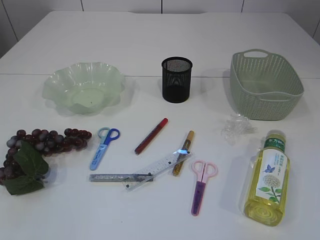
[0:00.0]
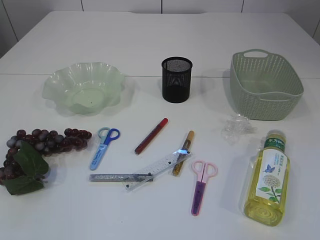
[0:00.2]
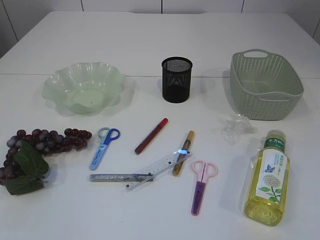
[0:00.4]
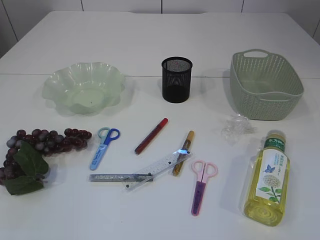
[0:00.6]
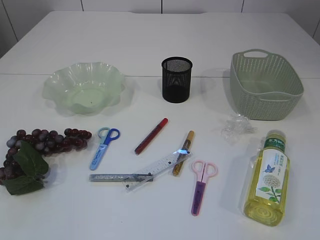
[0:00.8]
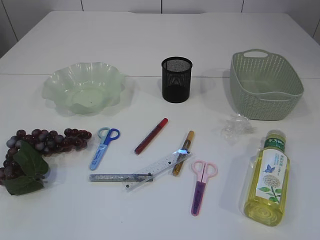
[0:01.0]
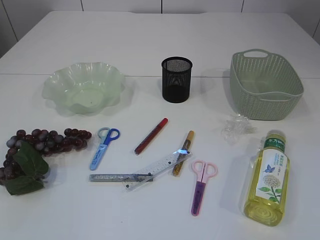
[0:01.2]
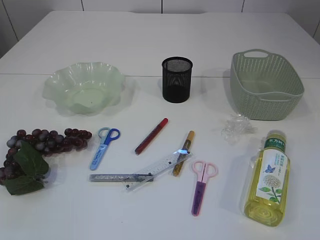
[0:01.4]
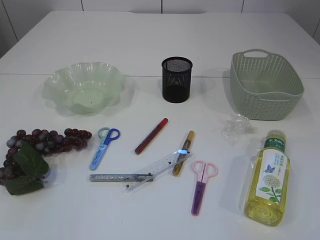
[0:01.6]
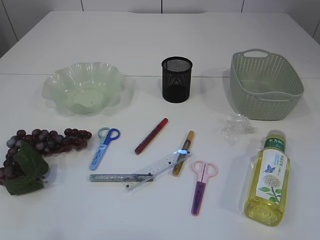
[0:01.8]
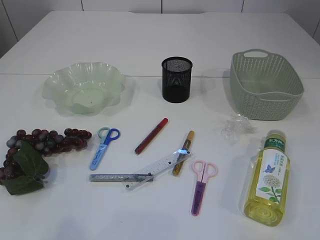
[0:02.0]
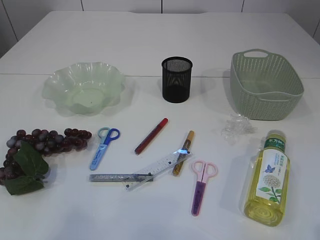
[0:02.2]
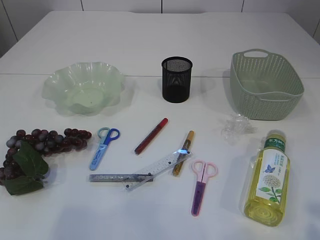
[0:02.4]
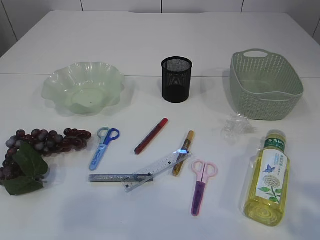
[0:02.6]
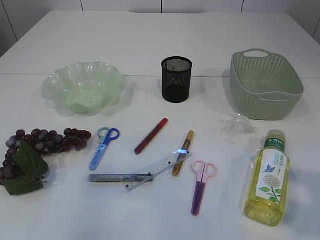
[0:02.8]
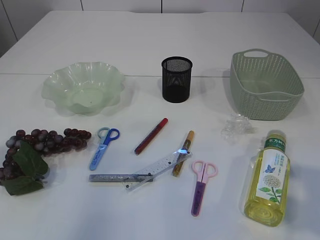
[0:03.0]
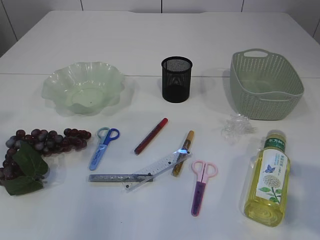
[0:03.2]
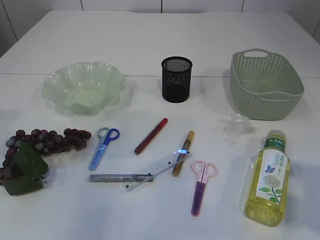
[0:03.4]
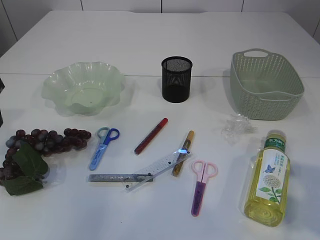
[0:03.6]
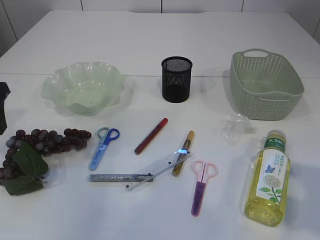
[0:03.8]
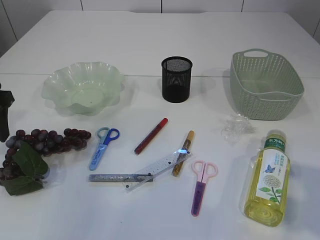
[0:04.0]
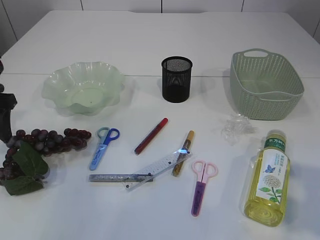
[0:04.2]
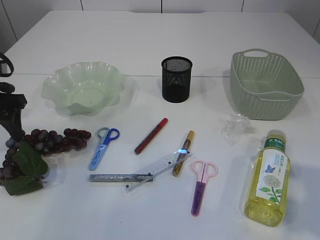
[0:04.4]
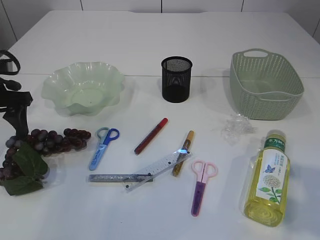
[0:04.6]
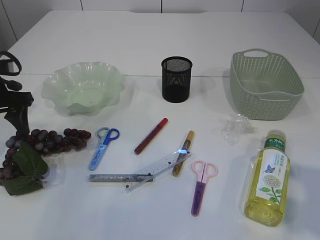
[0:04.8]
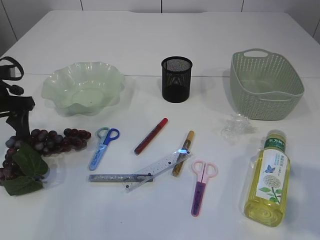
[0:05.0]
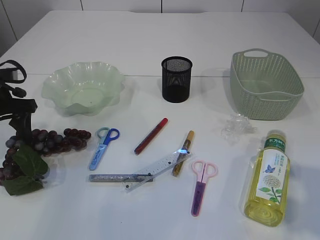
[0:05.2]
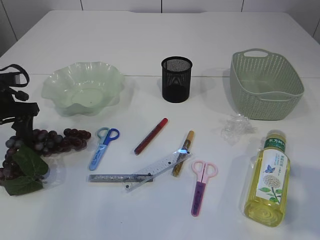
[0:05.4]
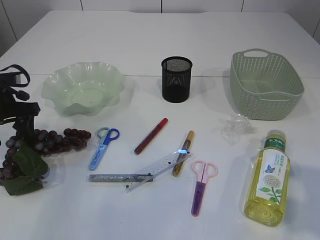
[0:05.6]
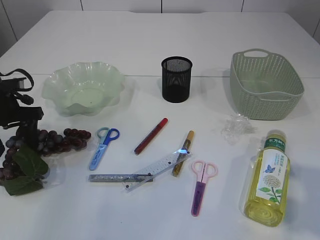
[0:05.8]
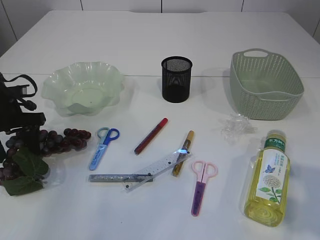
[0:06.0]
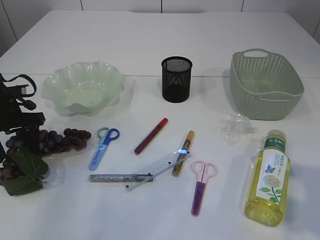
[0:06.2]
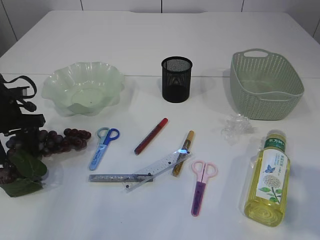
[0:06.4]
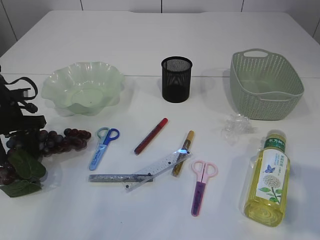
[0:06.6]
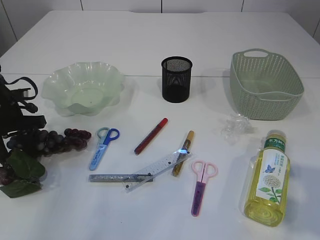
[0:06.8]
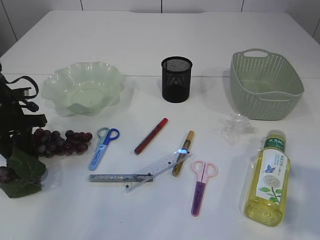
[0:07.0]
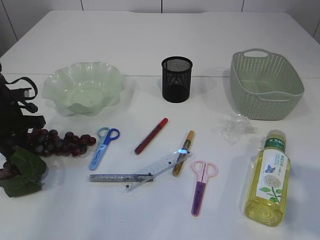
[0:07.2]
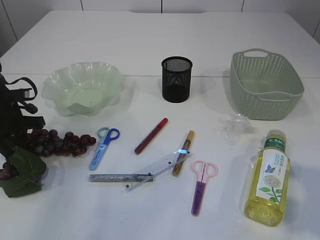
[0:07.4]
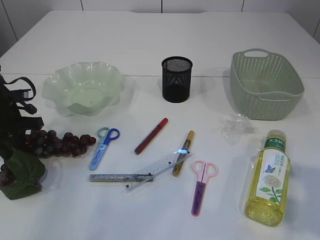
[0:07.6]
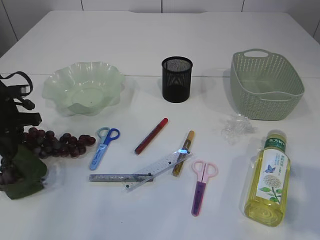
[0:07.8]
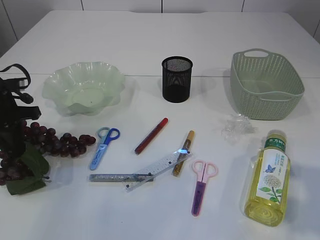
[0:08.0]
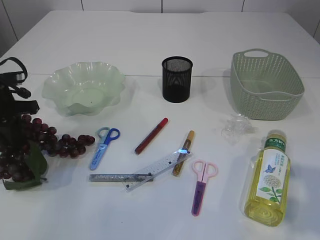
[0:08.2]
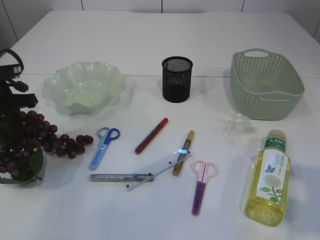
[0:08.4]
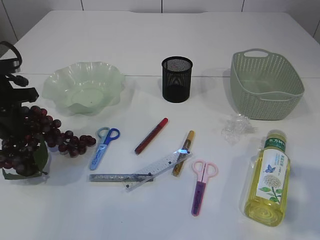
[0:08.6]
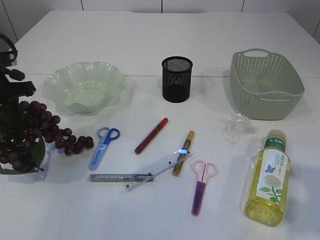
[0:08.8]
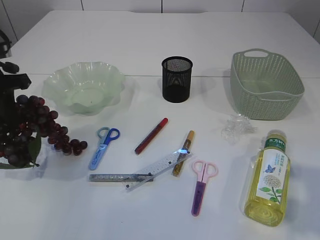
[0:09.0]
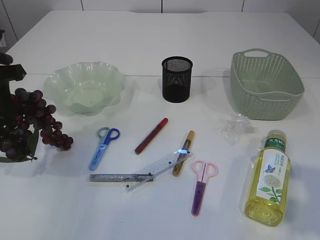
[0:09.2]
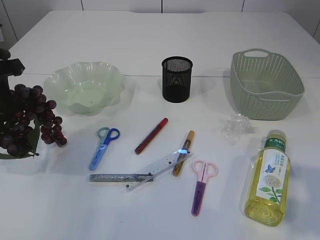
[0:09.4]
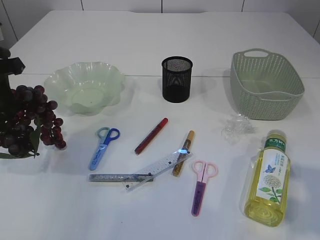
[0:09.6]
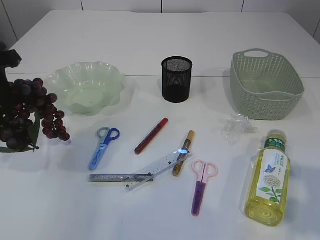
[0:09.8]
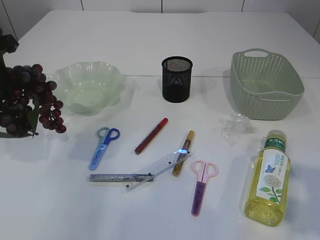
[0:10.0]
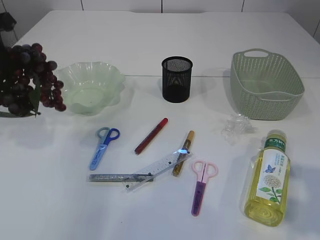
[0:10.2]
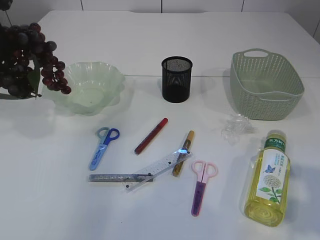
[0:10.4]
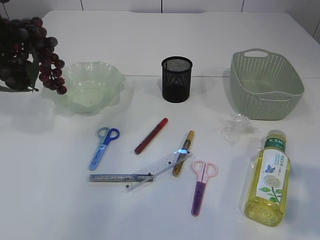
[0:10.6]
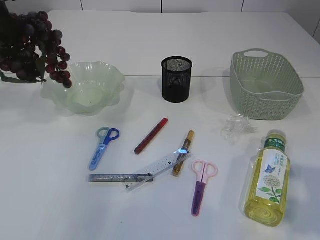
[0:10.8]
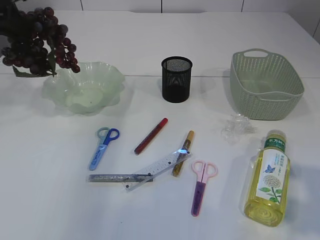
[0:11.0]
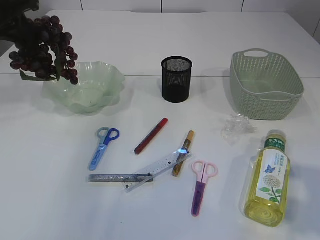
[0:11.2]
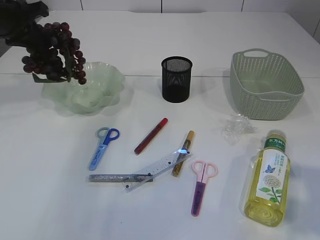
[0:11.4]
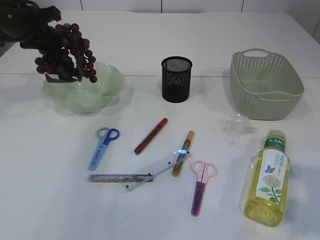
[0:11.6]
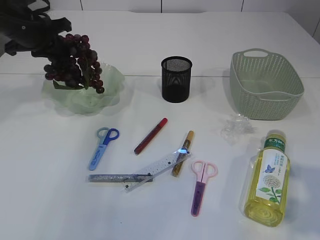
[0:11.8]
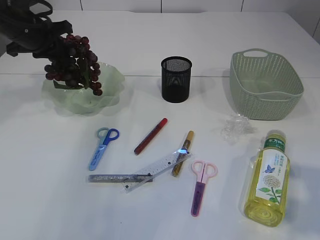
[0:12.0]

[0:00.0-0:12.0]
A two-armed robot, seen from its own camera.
Step, 0:00.0 to 0:09.4: Pick up the grapes.
0:01.6 to 0:03.0: The left gripper goes roughly 20 cm forward, while the right gripper goes some 10 cm forward.
0:03.0 to 0:04.4: The left gripper is displaced downward and forward by roughly 20 cm.
0:04.4 to 0:06.0: The left gripper shifts some 5 cm downward.
0:06.0 to 0:07.6: The left gripper closes.
0:07.6 to 0:09.0: The left gripper goes some 10 cm upward.
0:09.0 to 0:10.4: The left gripper heads upward, covering some 10 cm.
0:10.4 to 0:12.0: The left gripper shifts roughly 15 cm forward and downward.

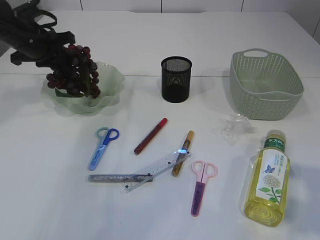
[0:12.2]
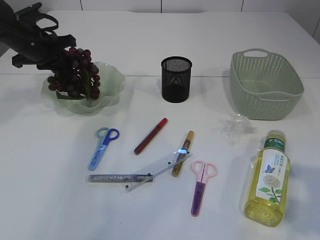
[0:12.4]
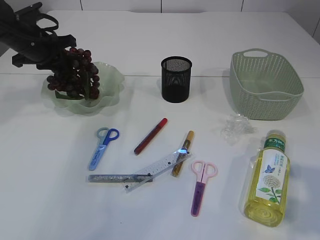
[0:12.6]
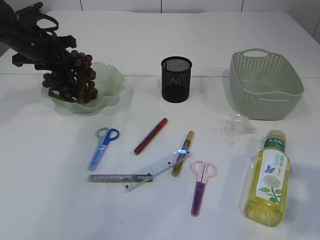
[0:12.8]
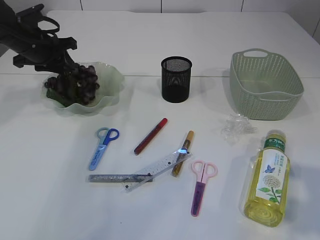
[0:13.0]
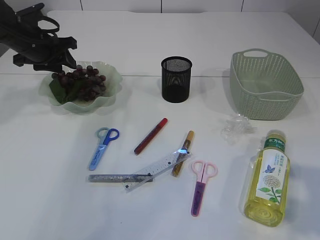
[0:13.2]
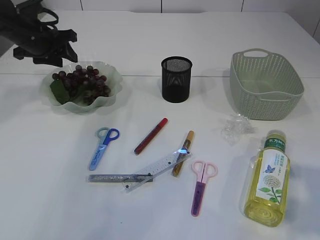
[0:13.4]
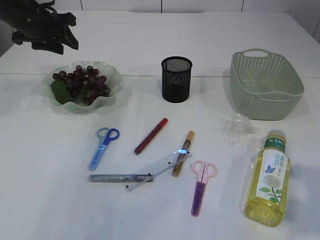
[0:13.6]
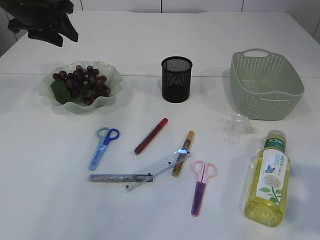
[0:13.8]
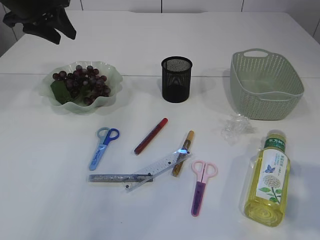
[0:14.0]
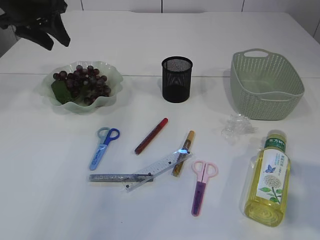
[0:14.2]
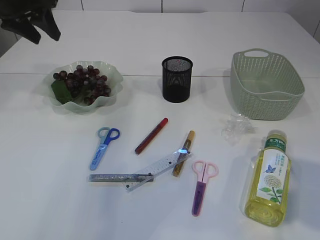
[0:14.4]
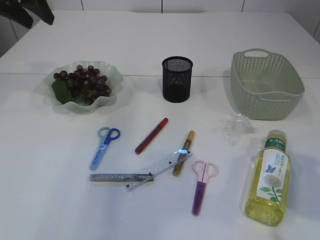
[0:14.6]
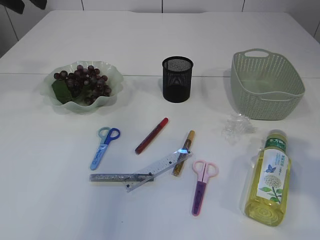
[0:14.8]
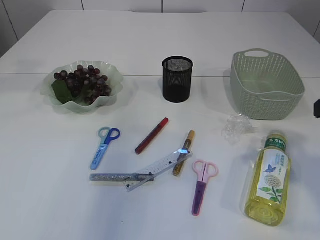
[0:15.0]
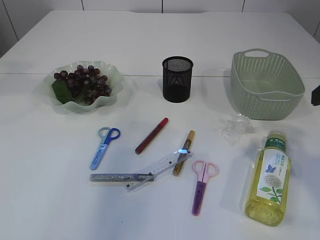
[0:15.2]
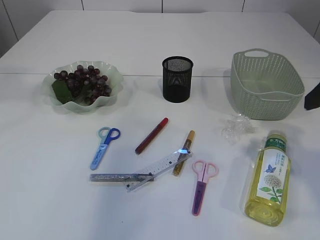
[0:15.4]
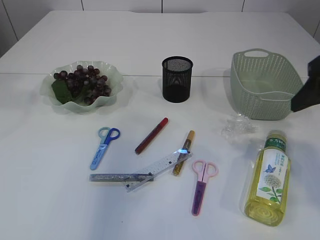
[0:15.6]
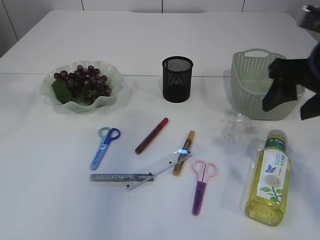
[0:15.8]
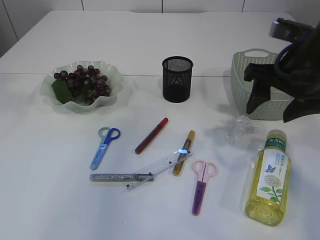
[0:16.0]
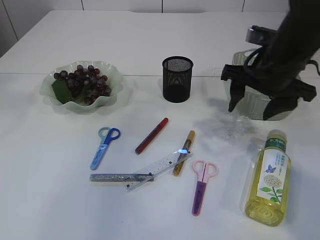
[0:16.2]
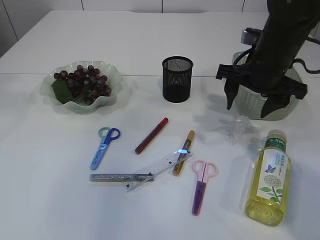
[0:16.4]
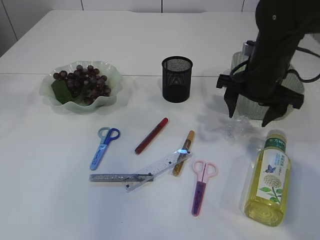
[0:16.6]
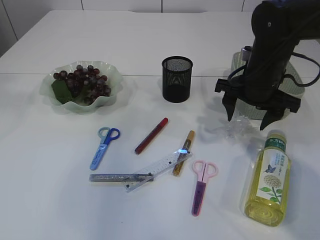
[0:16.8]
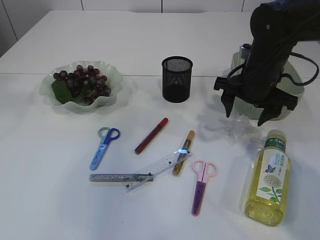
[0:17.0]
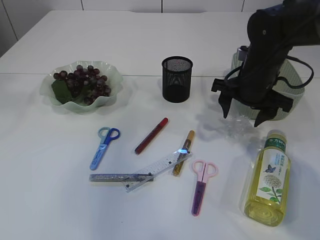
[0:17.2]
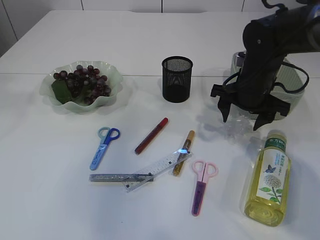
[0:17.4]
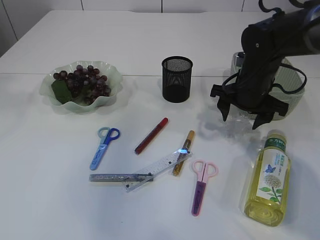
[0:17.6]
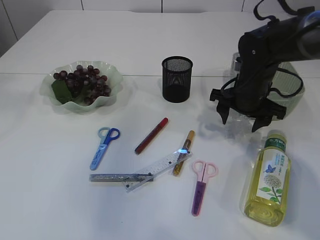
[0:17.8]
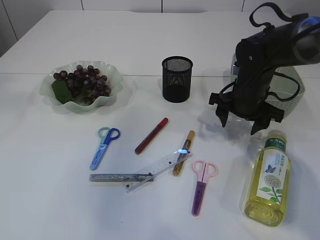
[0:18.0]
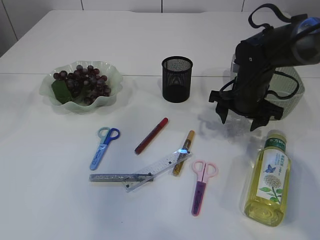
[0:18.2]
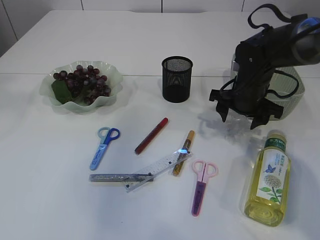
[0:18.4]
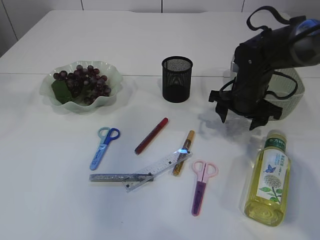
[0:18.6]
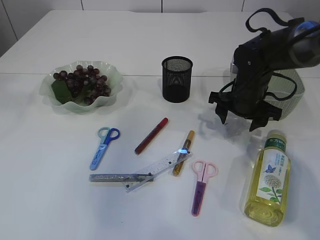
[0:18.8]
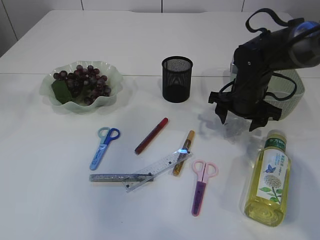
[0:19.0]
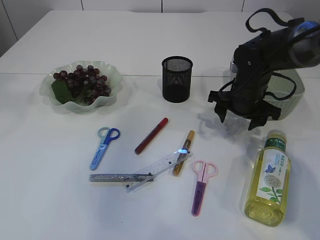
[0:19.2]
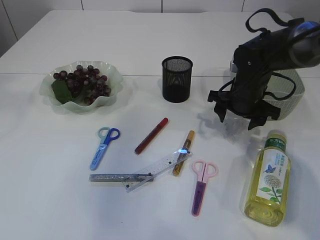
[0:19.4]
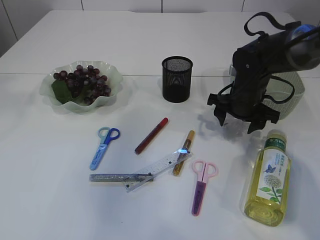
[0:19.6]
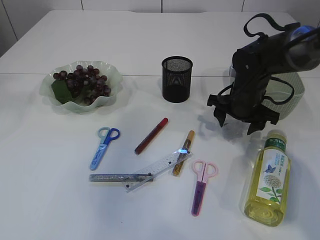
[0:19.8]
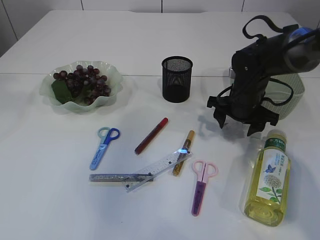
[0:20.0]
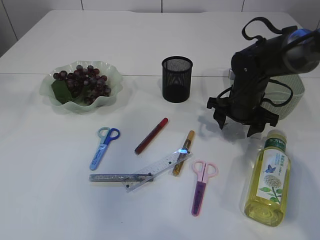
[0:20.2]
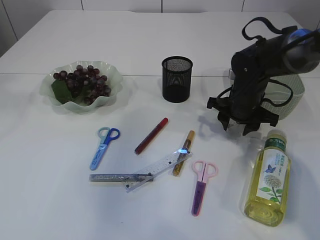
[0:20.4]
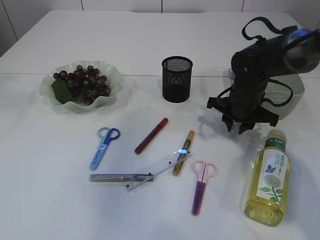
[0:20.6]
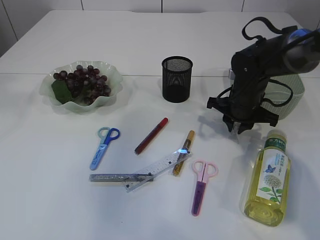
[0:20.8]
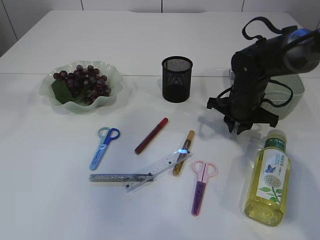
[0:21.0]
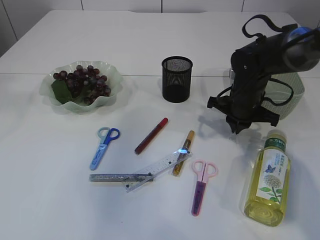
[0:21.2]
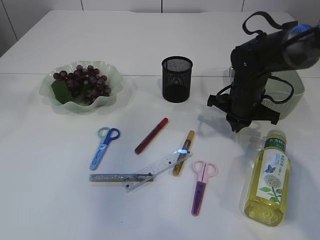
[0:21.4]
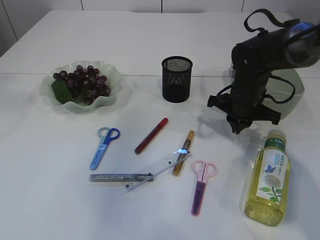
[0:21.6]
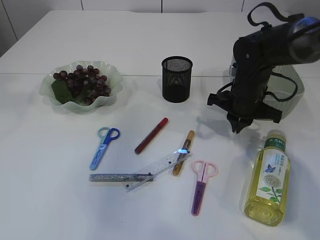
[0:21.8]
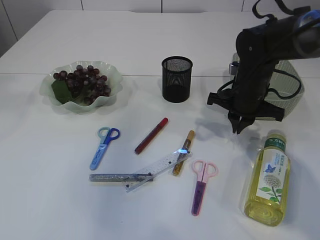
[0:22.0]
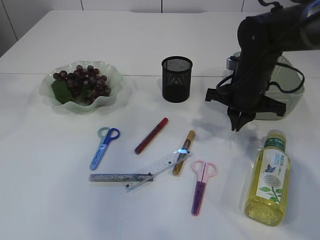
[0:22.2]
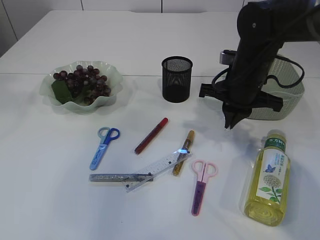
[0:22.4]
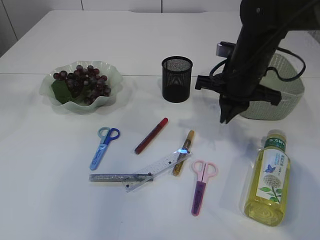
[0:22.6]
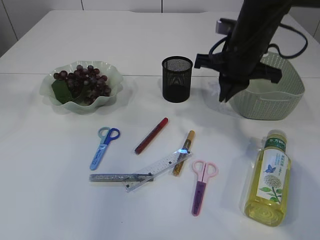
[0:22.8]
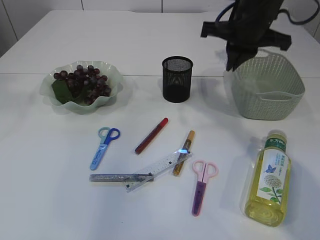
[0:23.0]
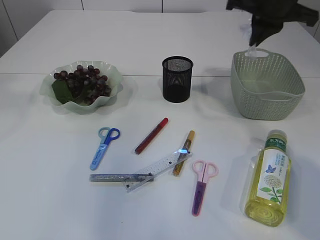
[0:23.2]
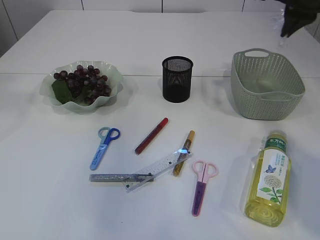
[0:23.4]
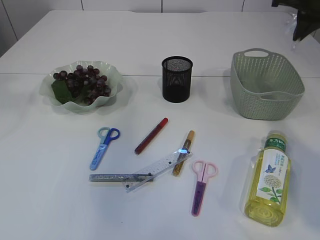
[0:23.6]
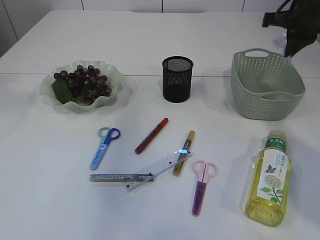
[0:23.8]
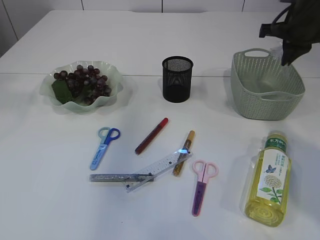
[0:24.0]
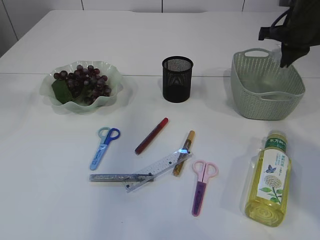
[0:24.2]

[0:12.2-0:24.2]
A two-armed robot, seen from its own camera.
Step, 0:14.2 to 0:22.8: Pick up the plastic.
0:12.2 to 0:13.8: The left gripper moves upward, approximately 5 cm, and opens.
0:13.8 to 0:15.2: The right gripper travels forward by approximately 10 cm. The left gripper is displaced upward and backward by approximately 20 cm.
0:15.2 to 0:16.6: The left gripper travels backward by about 5 cm. Meanwhile the right gripper moves forward, downward and to the left, about 20 cm.
0:16.6 to 0:18.2: The right gripper heads downward, covering approximately 5 cm.
0:18.2 to 0:19.8: The grippers make only small movements.
0:19.8 to 0:21.2: The right gripper closes its fingers.
0:21.2 to 0:22.6: The right gripper heads upward, covering roughly 10 cm.
0:22.6 to 0:24.2: The right gripper is displaced to the right and forward by about 15 cm.
